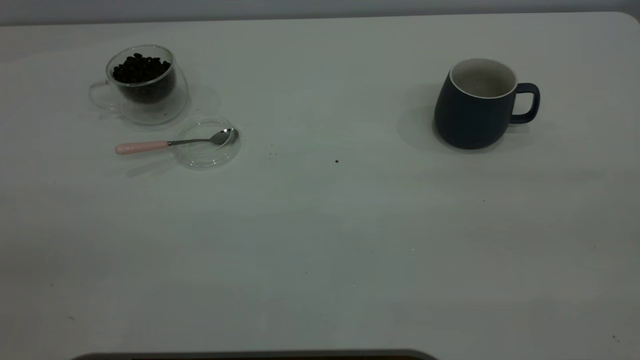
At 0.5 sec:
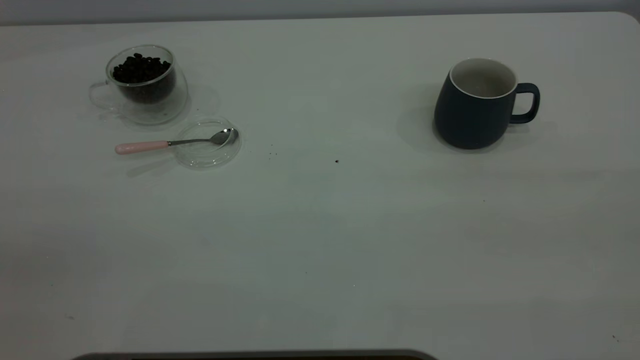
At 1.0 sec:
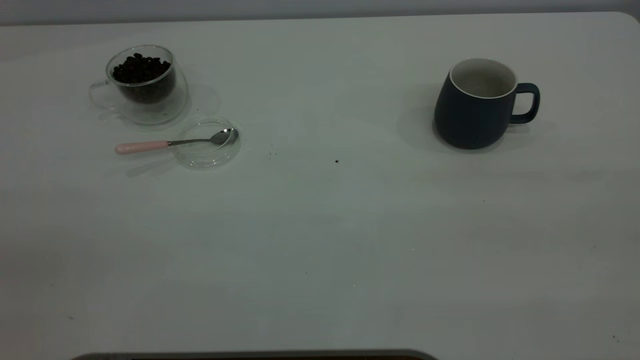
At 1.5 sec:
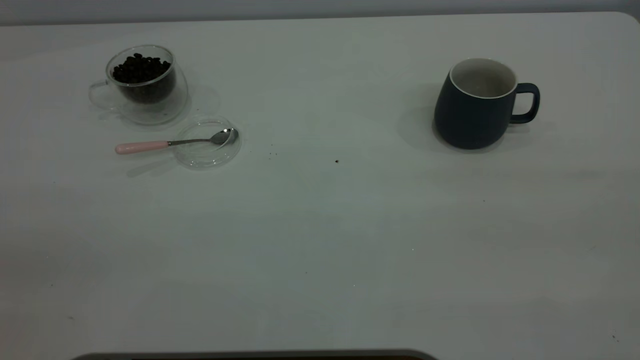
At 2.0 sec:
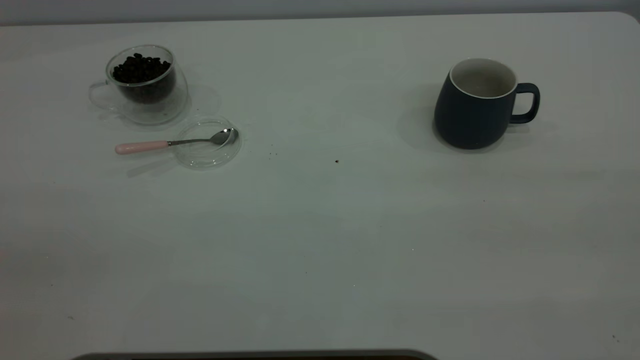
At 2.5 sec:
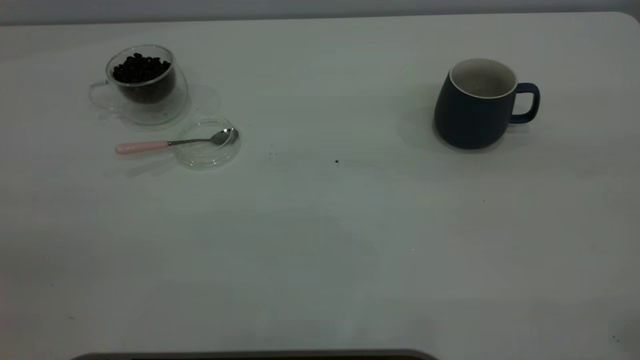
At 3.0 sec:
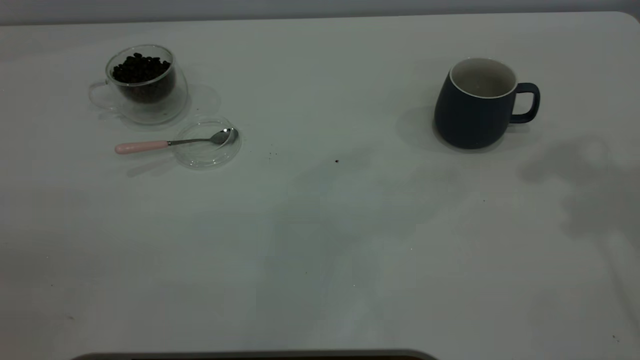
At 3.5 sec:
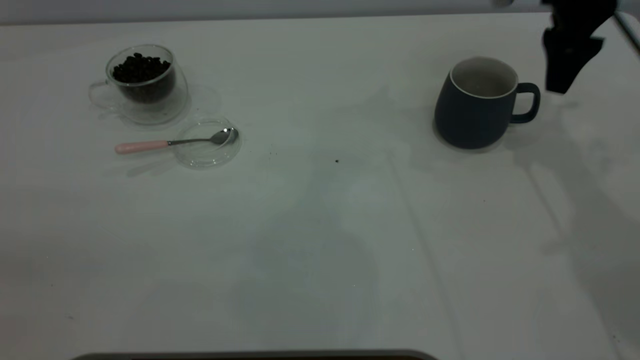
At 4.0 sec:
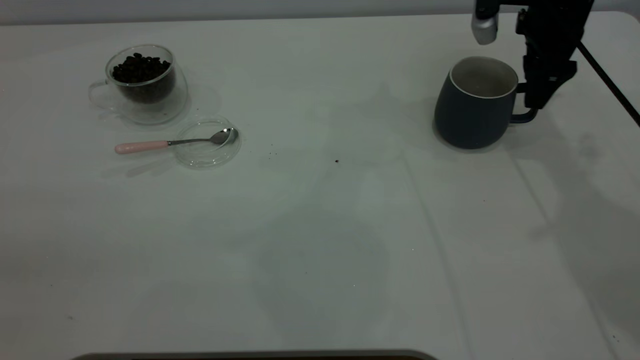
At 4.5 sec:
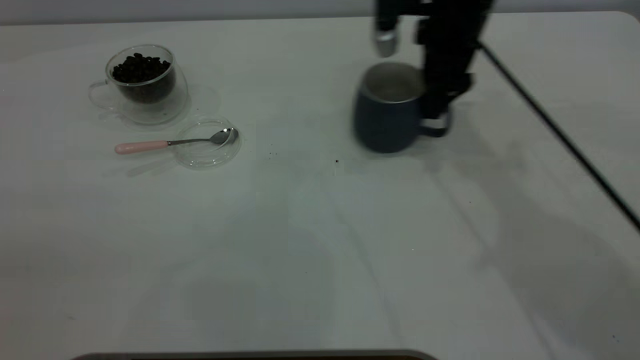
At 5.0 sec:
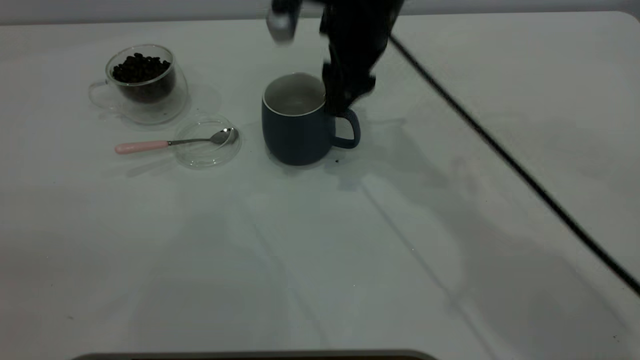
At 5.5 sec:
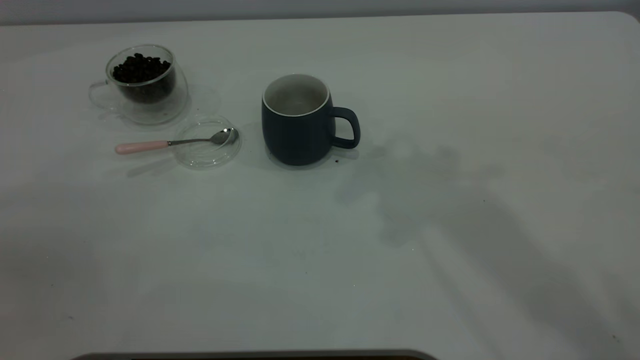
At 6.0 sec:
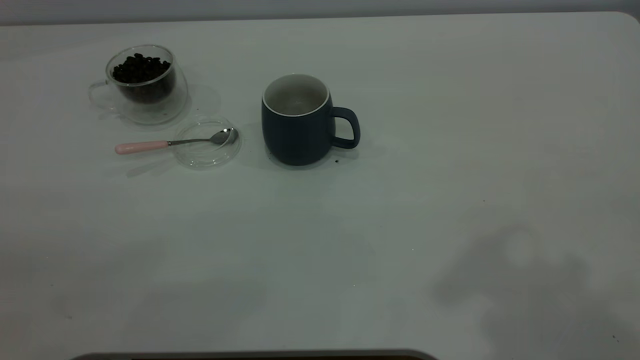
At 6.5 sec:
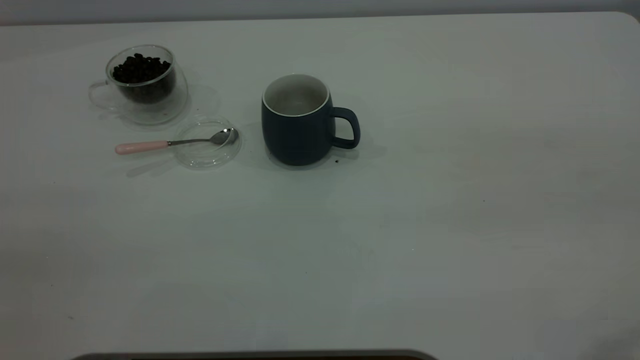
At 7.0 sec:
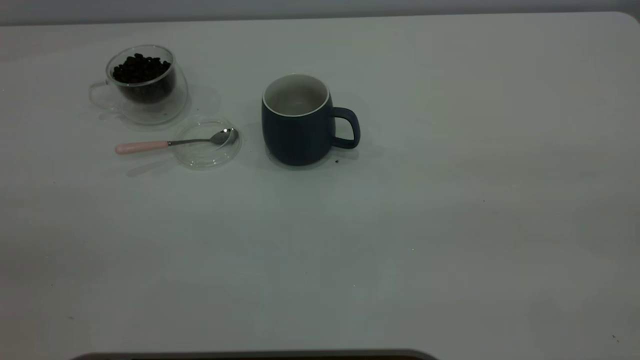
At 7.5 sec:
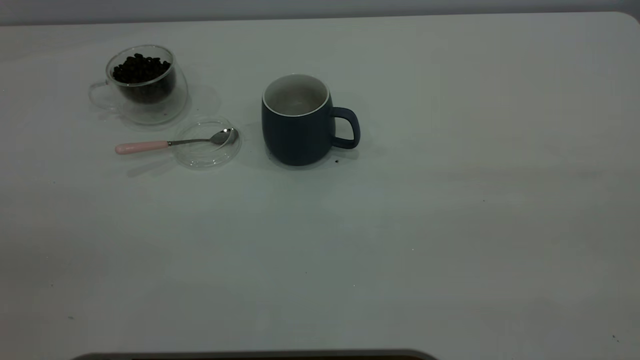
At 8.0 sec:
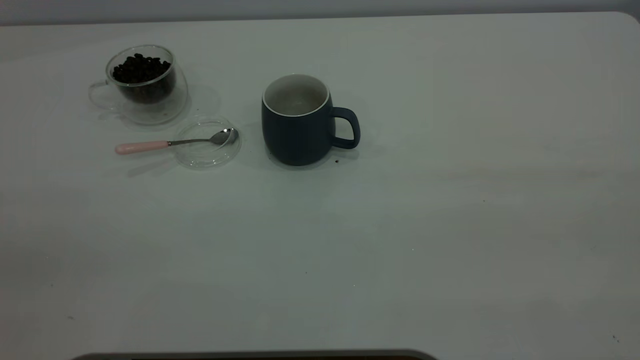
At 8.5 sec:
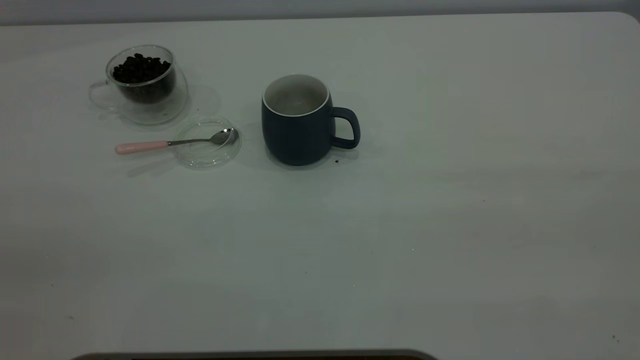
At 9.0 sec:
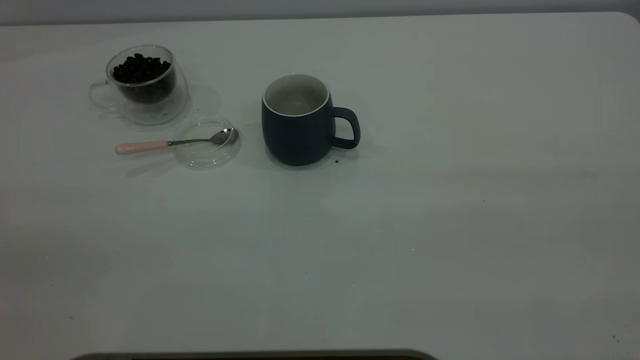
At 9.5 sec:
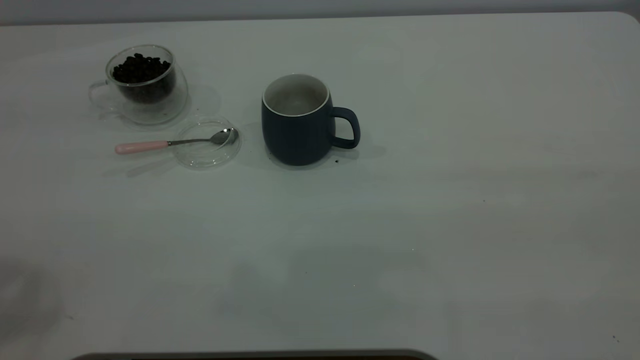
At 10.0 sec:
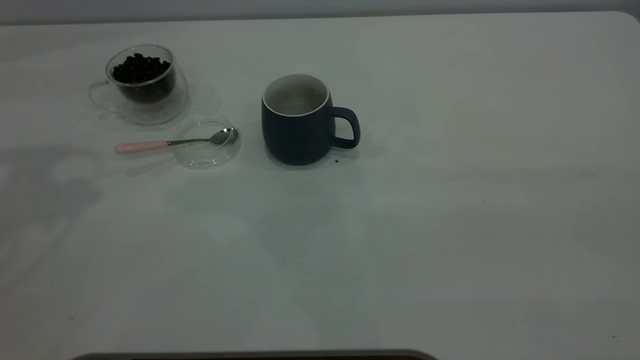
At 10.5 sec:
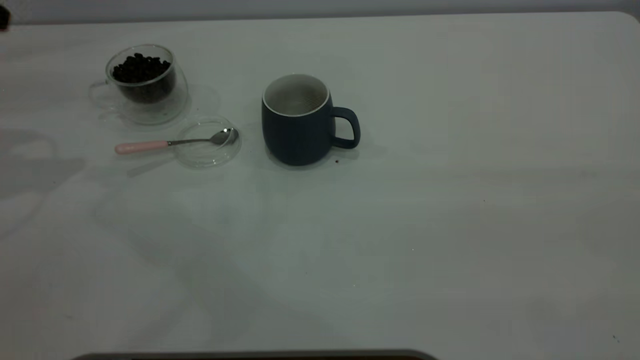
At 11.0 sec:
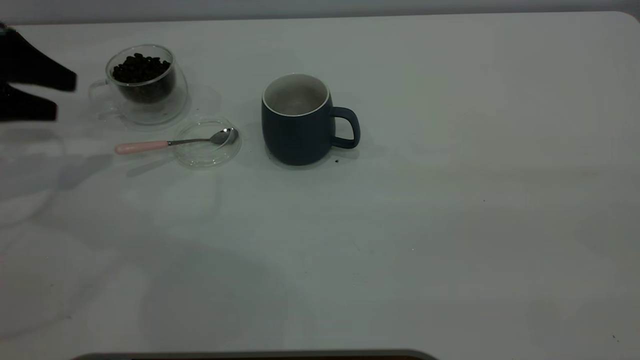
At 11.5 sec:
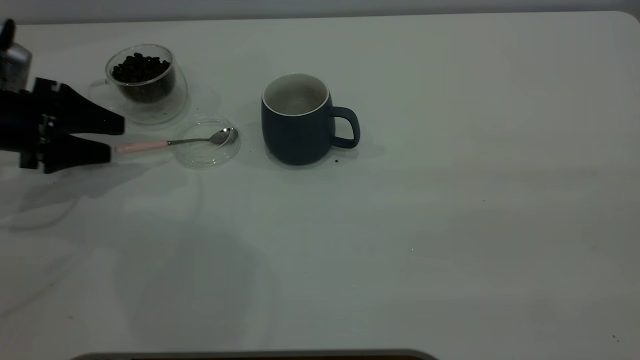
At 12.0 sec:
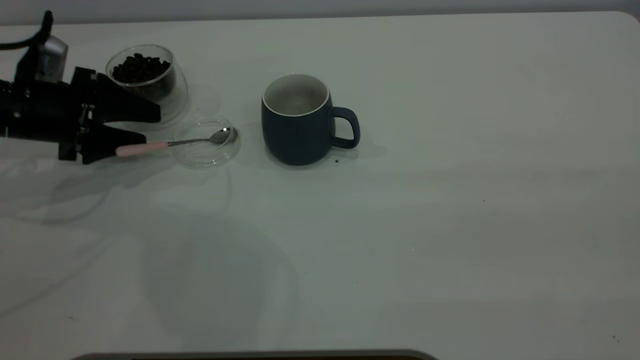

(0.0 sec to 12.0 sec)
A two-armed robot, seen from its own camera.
Task of the whole recording: the right gripper place the grey cup in the center of the table, the left gripper take the pink spoon from the cup lid and scoop out the coffee beans from the coffee cup and put them into the grey cup, the left gripper put the spoon back into the cup lid.
Step, 0.0 sec - 5.0 sec: Move the cup to the center of view.
0.0 sec - 2.0 sec: Neither gripper changes place.
2.0 sec - 4.0 sec: The right gripper moves forward and downward, some 50 cm.
4.0 sec - 6.0 sec: The right gripper travels upward and backward by approximately 40 cm.
10.0 sec - 12.0 sec: The left gripper shifts roughly 30 cm downward.

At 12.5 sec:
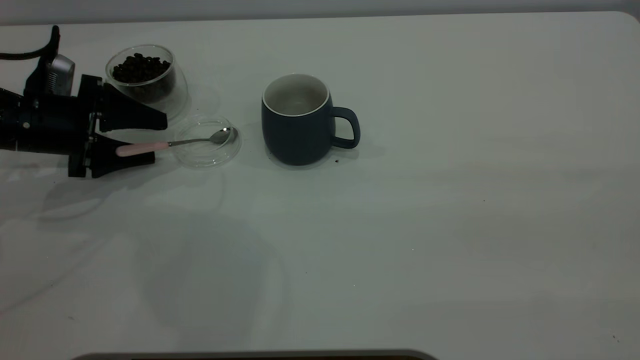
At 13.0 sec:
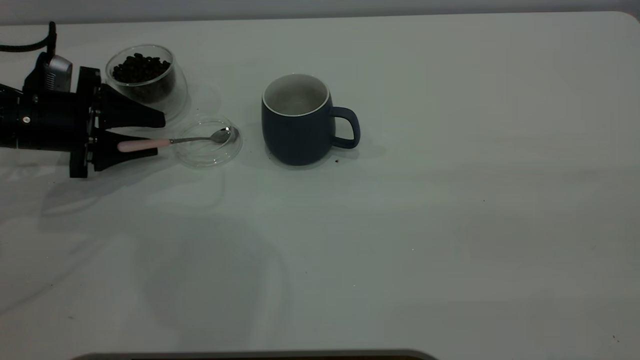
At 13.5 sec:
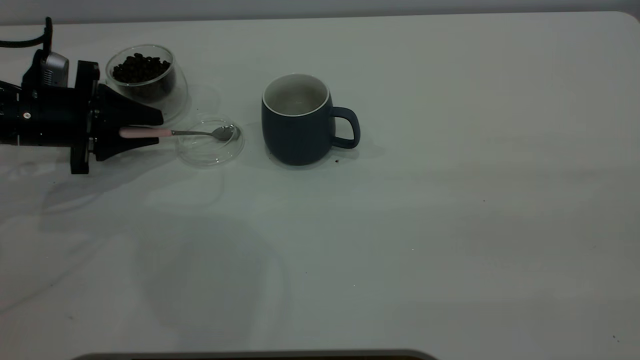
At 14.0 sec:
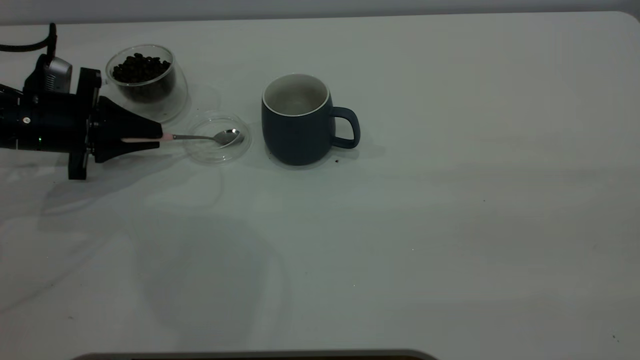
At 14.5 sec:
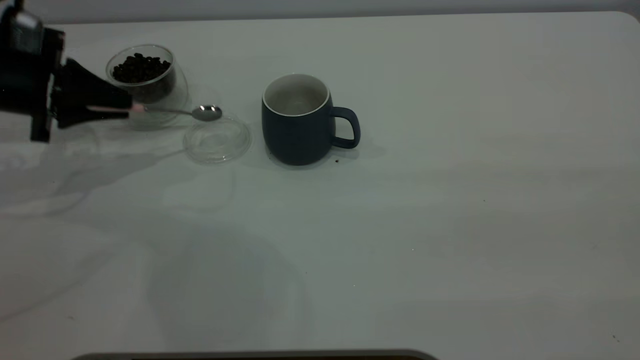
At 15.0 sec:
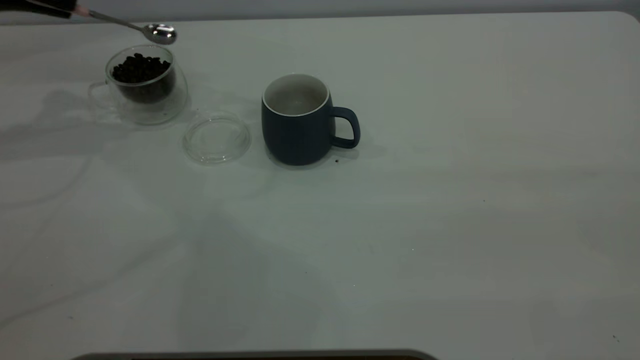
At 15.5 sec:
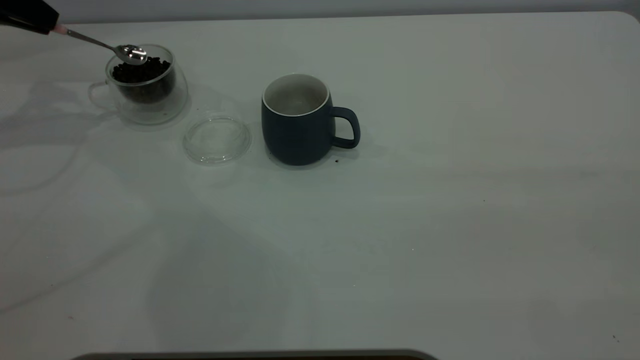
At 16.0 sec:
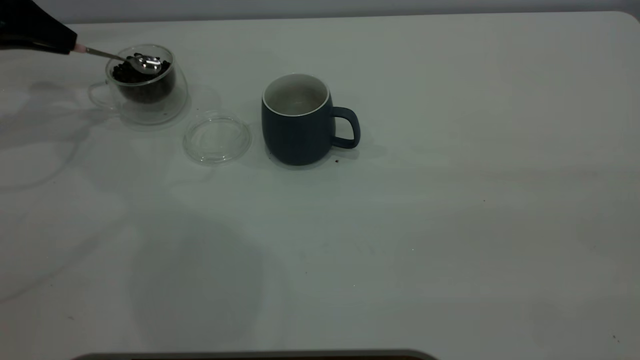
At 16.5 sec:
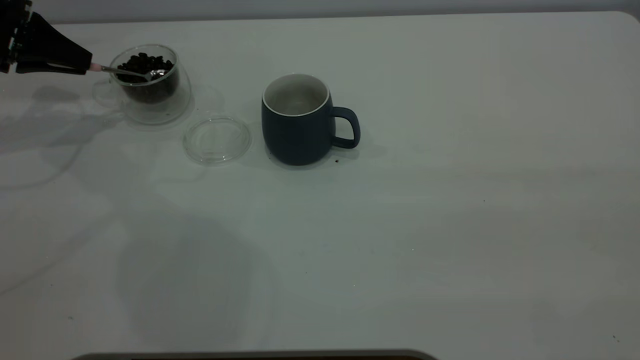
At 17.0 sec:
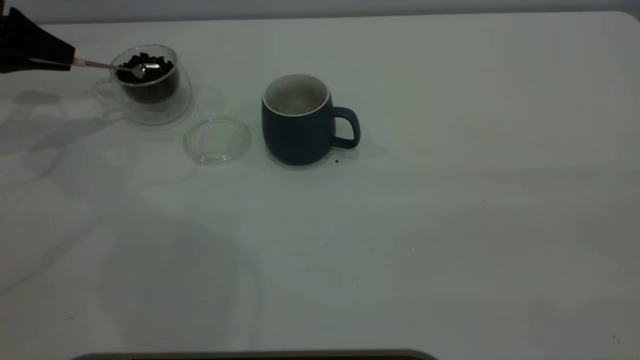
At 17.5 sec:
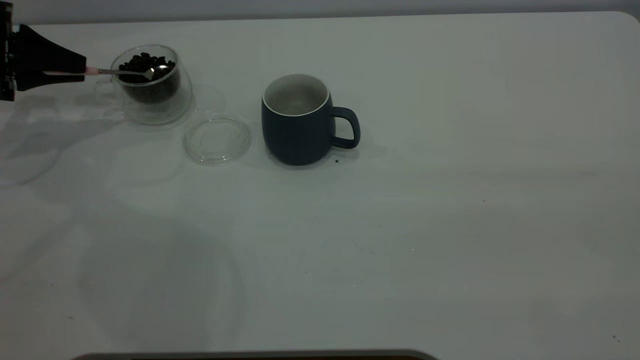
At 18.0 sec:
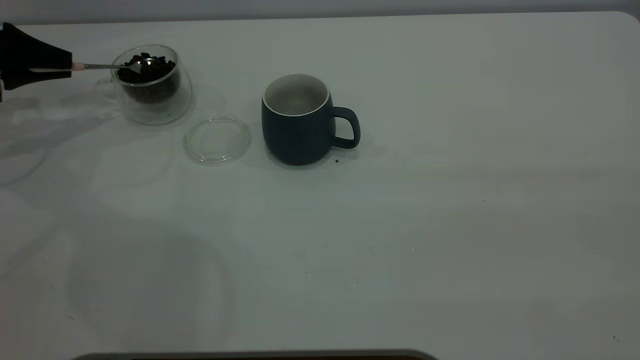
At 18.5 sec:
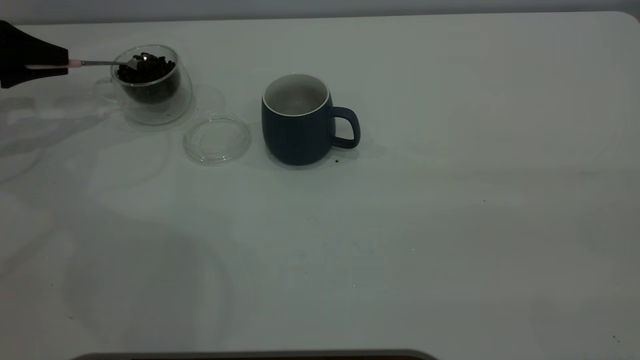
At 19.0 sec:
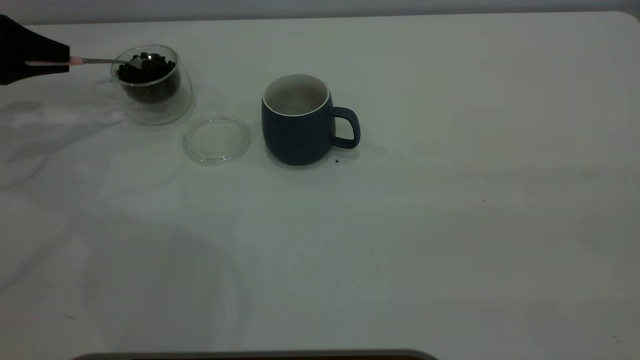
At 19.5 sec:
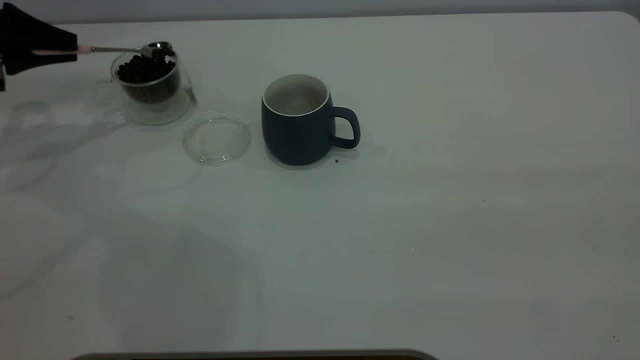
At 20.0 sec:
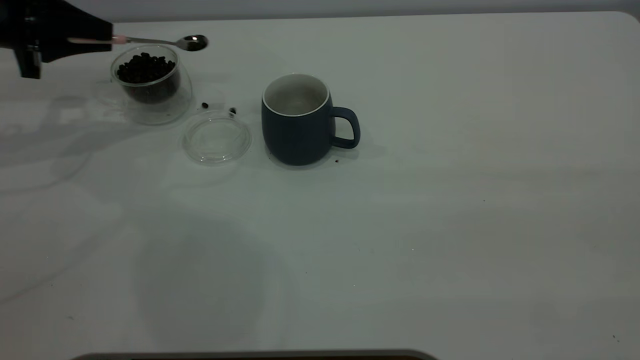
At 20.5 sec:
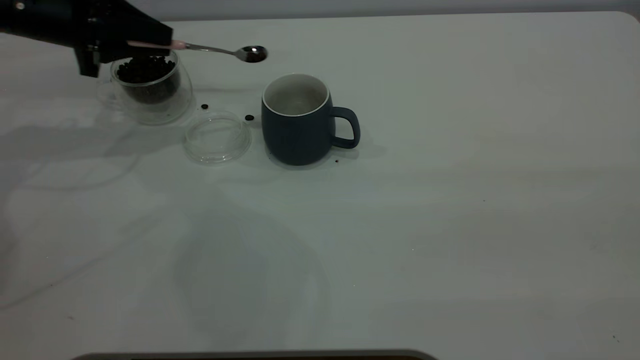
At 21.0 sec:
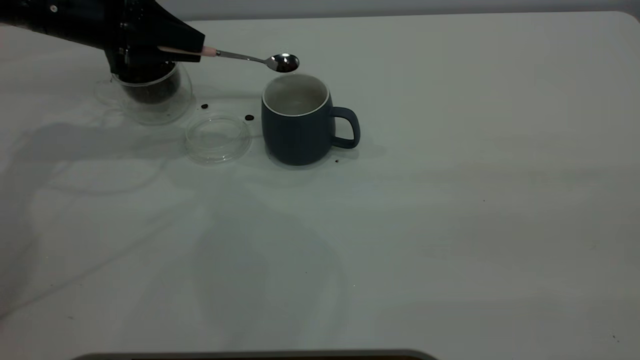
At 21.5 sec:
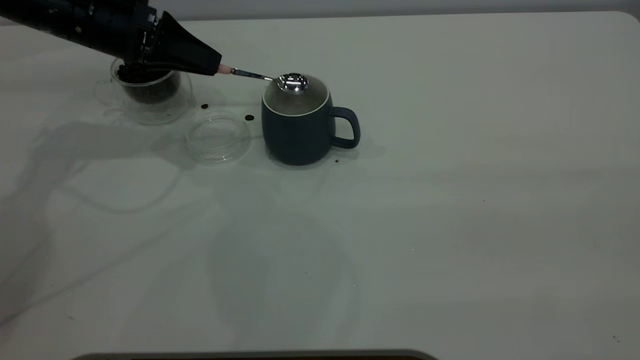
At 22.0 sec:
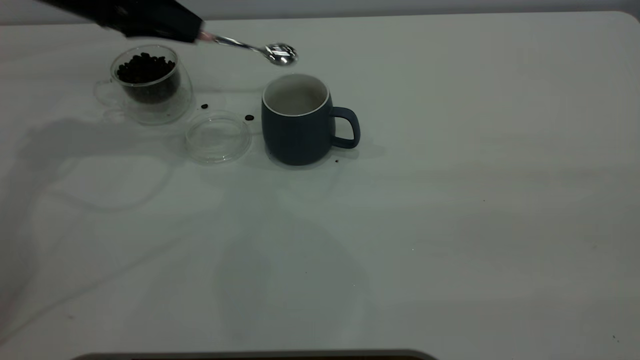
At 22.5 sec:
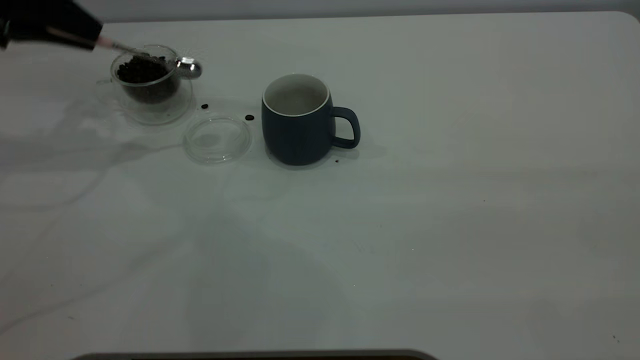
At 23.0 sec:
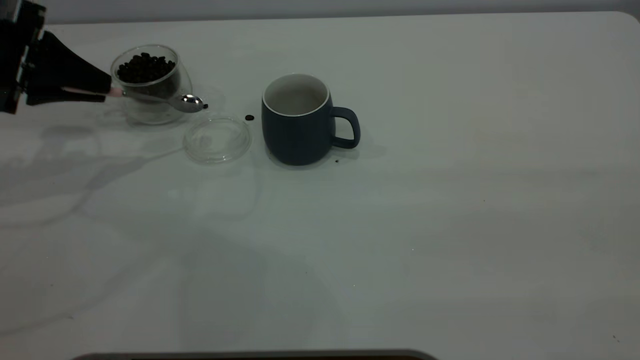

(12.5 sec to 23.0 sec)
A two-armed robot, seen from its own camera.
Task of the whole recording: the right gripper place the grey cup in the center of the table, the left gripper take the pink spoon from the cup lid and scoop out the coffee beans from the coffee cup and put them into the grey cup, the left gripper put the spoon back into the cup lid.
Step, 12.5 sec - 14.5 sec: Pick up the spoon.
Step, 15.0 sec - 21.5 sec: Scoop a spoonful of beans into the cup.
12.5 sec - 14.5 sec: The left gripper goes approximately 5 cm upward, and closes.
14.5 sec - 16.5 sec: The left gripper travels forward and to the left by some 10 cm, and reaches approximately 10 cm upward, then returns.
19.0 sec - 21.0 sec: The left gripper is displaced to the right by roughly 15 cm.
21.0 sec - 23.0 sec: The left gripper shifts some 10 cm to the left and backward.
